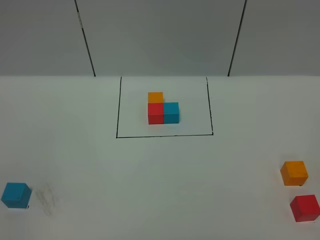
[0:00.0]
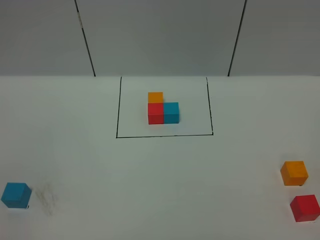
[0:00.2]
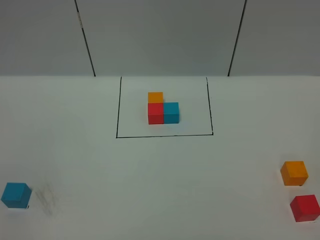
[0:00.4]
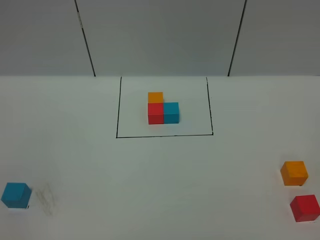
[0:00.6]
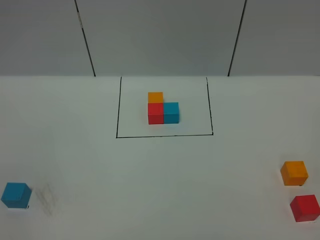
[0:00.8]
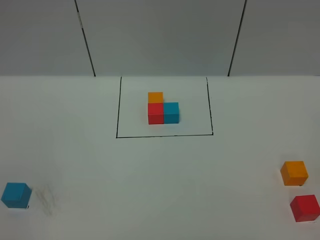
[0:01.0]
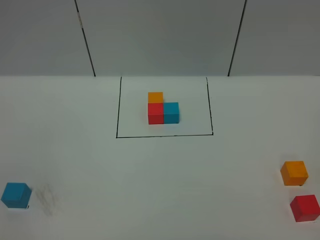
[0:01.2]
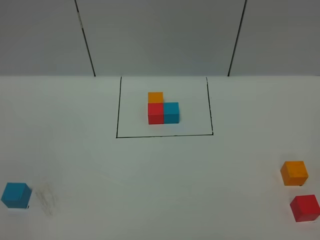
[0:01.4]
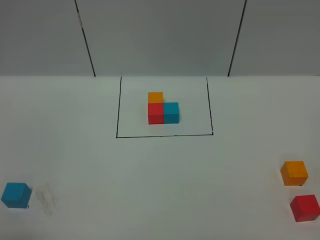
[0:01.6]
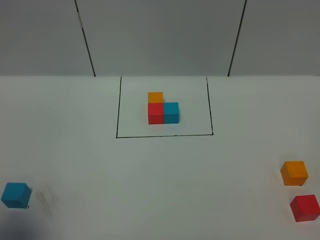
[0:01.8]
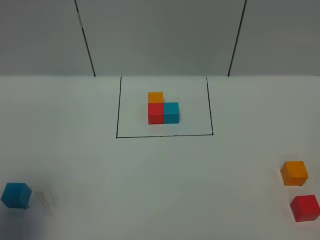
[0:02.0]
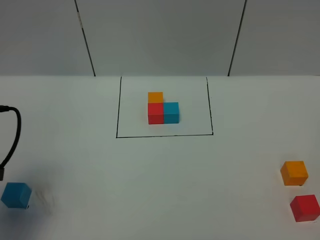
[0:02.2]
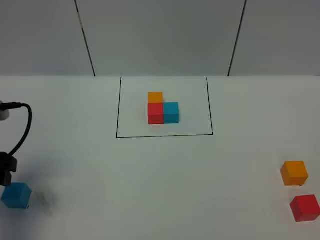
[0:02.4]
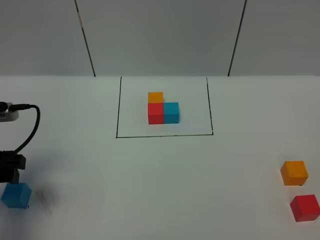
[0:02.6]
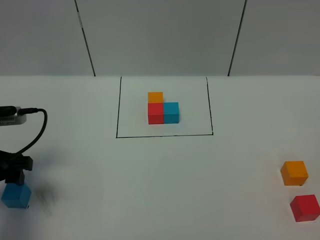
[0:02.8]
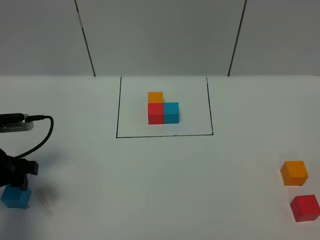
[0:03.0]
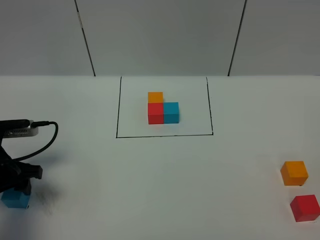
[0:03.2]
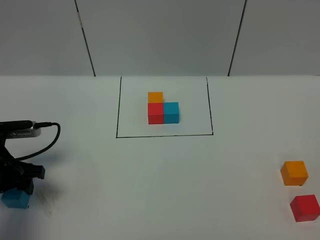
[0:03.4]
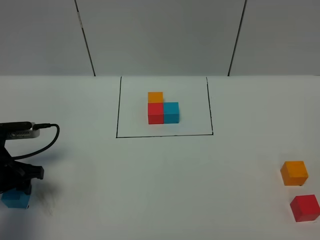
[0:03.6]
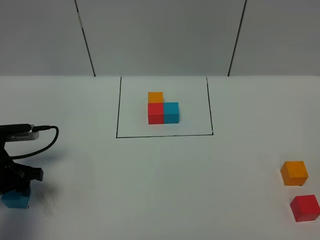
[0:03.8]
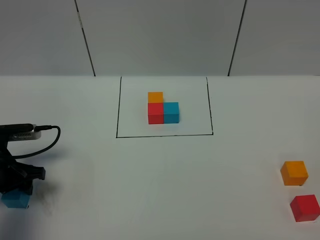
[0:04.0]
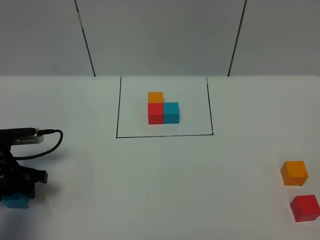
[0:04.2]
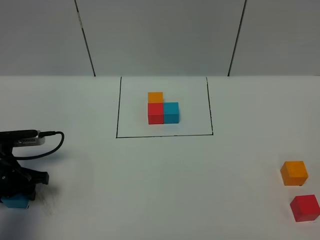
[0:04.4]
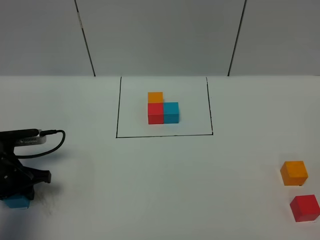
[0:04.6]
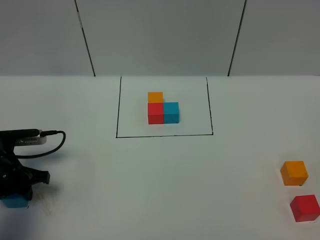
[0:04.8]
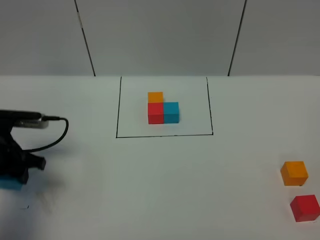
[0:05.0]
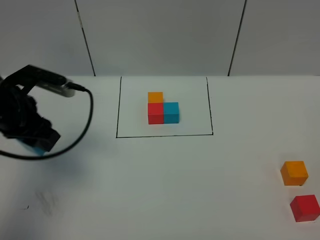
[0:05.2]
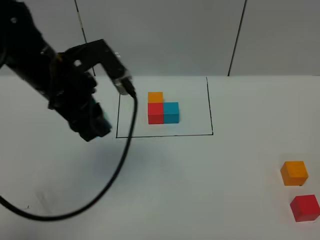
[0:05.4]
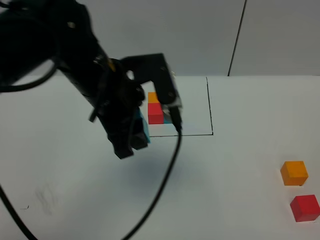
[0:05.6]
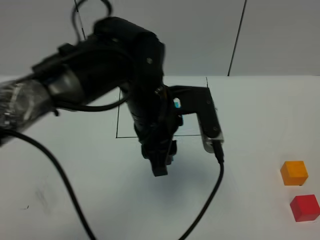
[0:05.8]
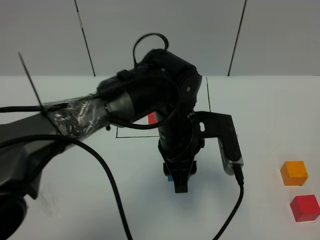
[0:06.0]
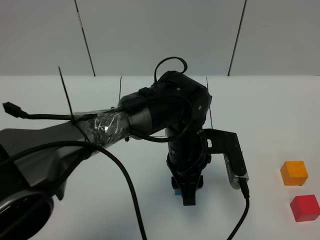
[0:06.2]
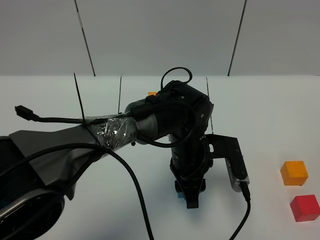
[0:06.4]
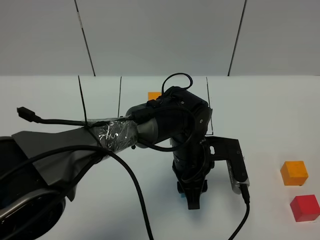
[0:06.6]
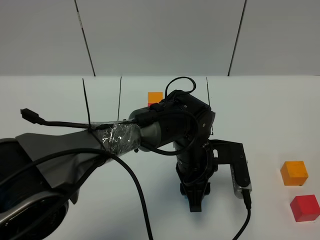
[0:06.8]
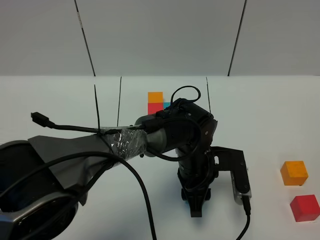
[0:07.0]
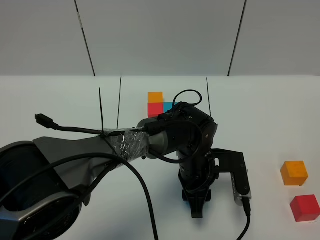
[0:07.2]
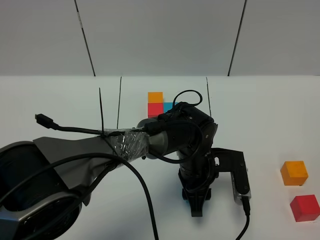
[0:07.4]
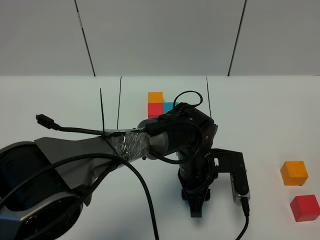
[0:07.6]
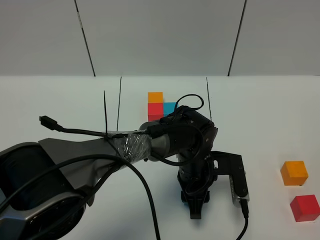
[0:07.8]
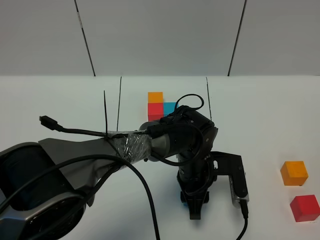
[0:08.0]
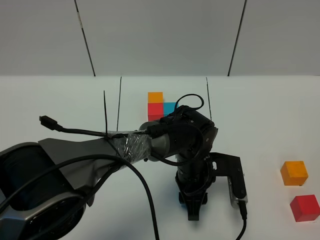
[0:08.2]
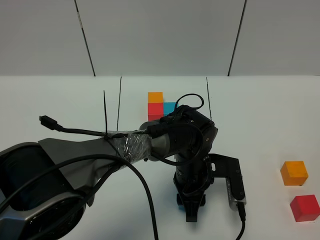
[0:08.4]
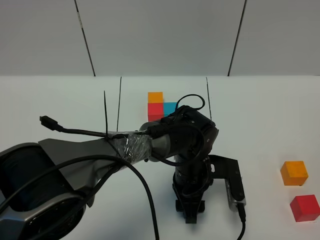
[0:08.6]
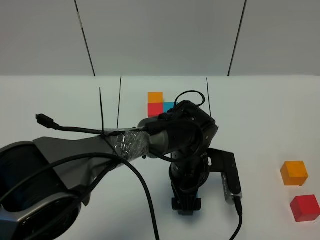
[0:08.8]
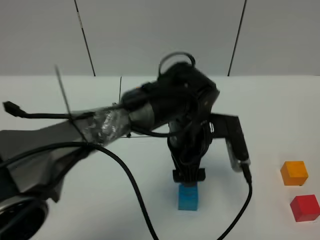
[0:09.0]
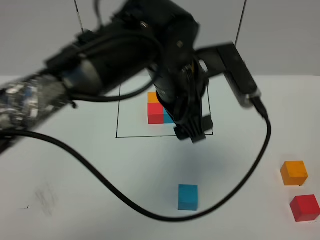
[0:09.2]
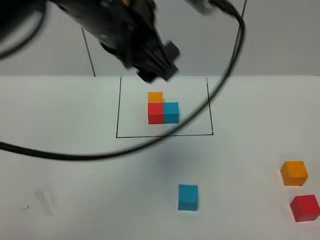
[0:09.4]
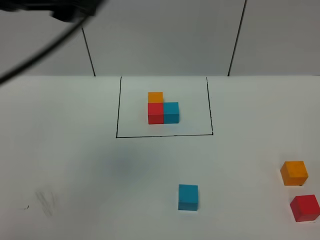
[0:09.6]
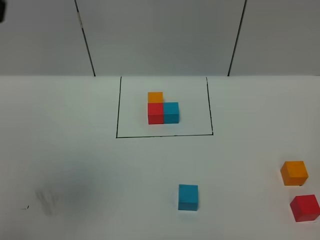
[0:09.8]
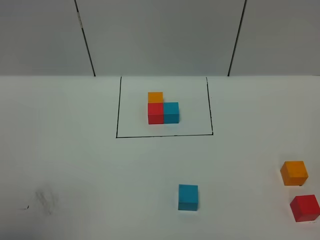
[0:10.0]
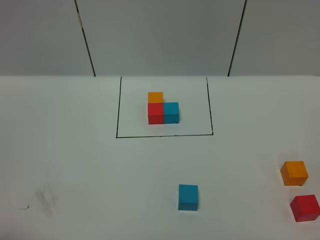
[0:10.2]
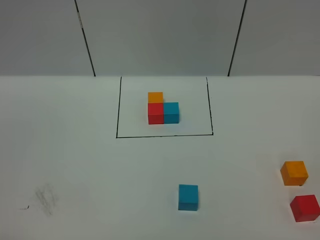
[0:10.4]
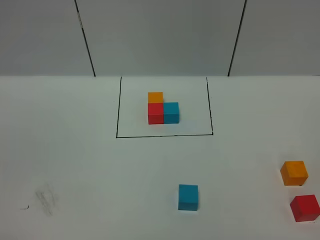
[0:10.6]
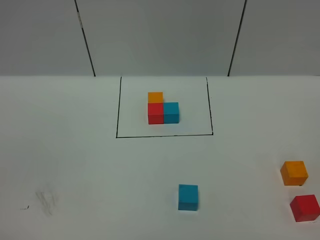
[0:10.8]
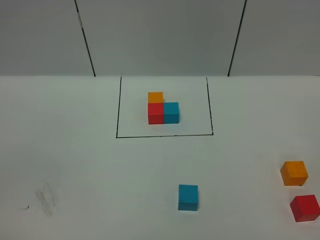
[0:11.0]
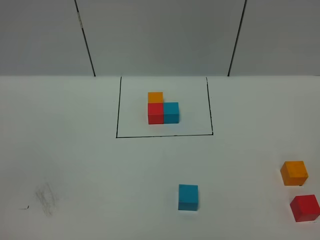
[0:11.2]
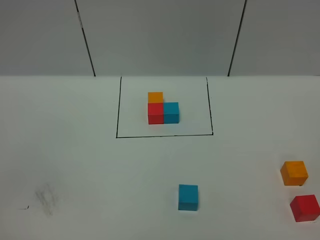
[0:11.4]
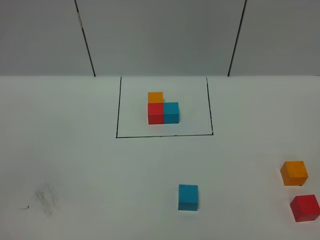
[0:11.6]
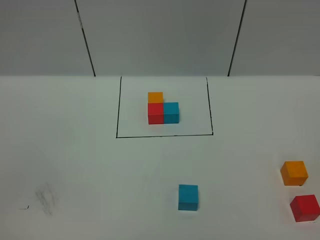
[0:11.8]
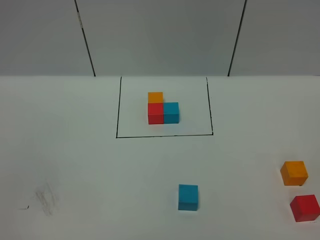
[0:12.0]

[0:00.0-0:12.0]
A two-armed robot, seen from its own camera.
Task of the whole recording: According to the building block template in front, assemble the scattered blocks together.
Step, 0:02.2 to 0:08.8: Put the blue cube in the center of the table.
0:01.6 to 0:03.0: The left gripper moves forward and downward, approximately 25 cm.
0:03.0 to 0:04.4: The left gripper goes approximately 5 cm downward.
0:04.4 to 0:06.0: The left gripper heads to the right, covering approximately 35 cm, and closes its fingers.
0:06.0 to 0:07.6: The left gripper travels downward by approximately 10 cm.
0:07.6 to 0:09.0: The left gripper heads upward, covering approximately 10 cm, and opens.
0:09.0 to 0:10.4: The left gripper goes some 50 cm to the left, backward and upward.

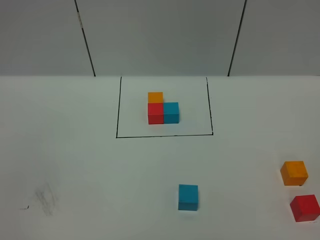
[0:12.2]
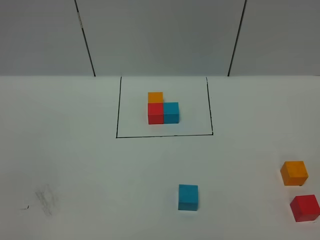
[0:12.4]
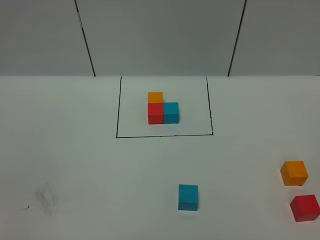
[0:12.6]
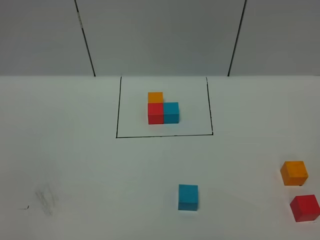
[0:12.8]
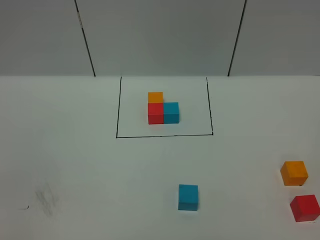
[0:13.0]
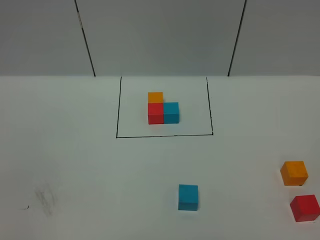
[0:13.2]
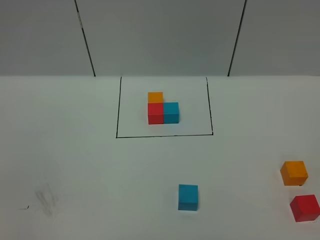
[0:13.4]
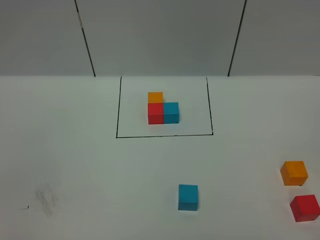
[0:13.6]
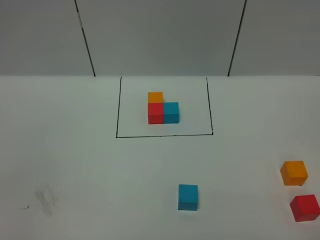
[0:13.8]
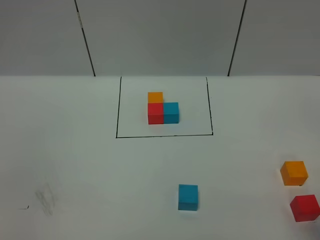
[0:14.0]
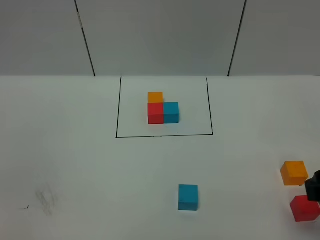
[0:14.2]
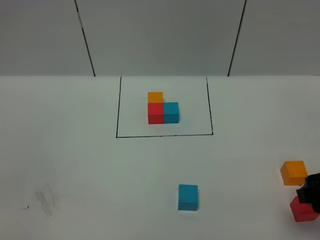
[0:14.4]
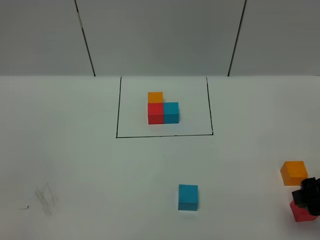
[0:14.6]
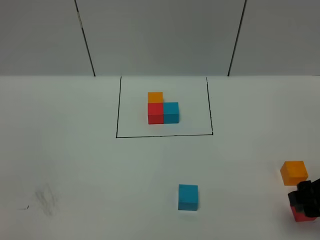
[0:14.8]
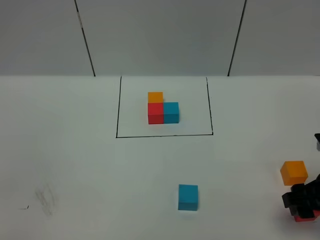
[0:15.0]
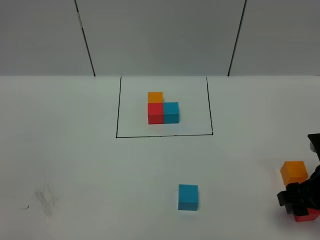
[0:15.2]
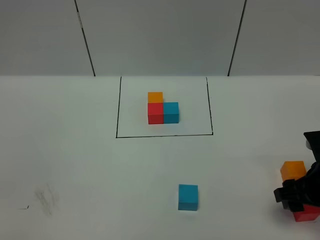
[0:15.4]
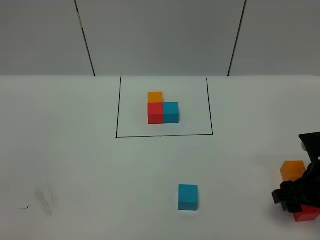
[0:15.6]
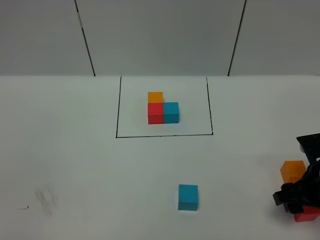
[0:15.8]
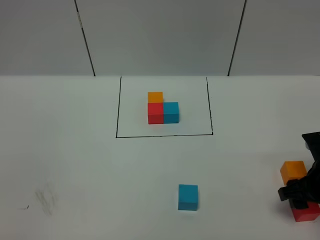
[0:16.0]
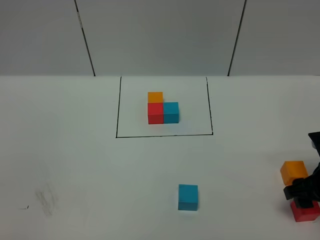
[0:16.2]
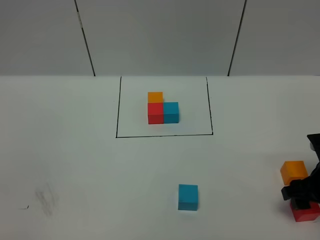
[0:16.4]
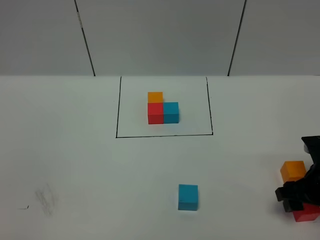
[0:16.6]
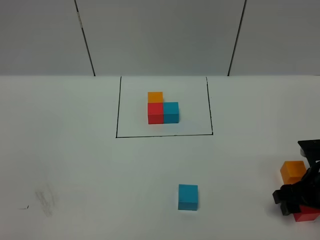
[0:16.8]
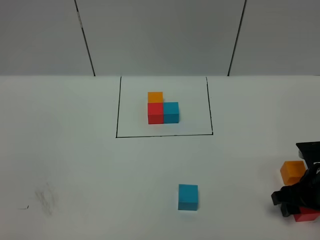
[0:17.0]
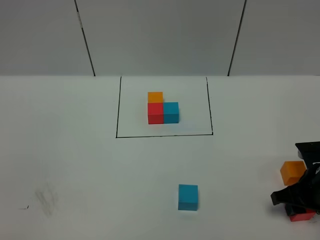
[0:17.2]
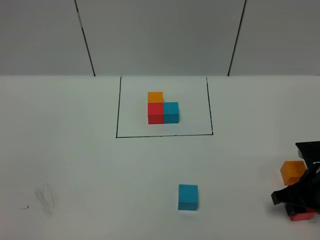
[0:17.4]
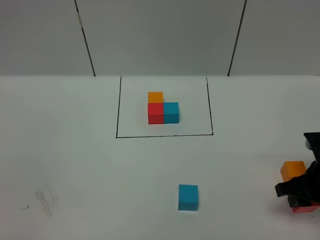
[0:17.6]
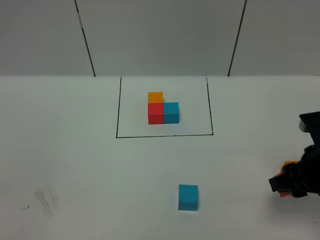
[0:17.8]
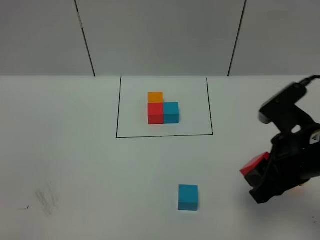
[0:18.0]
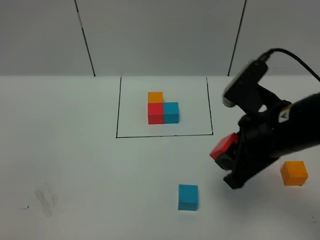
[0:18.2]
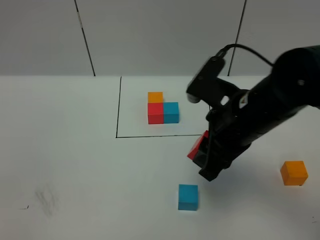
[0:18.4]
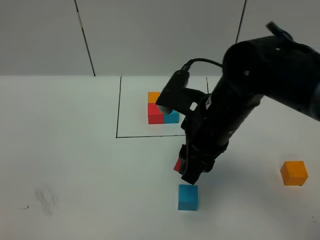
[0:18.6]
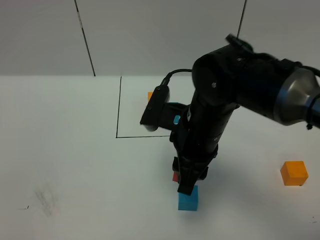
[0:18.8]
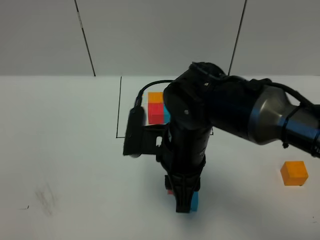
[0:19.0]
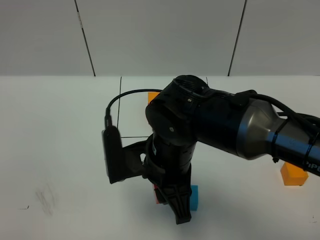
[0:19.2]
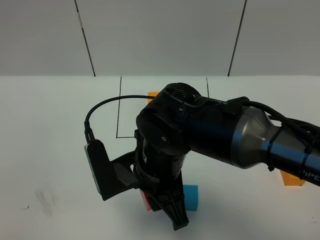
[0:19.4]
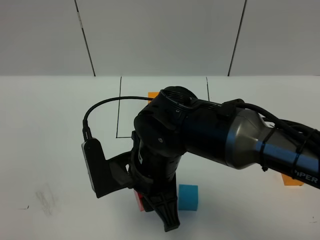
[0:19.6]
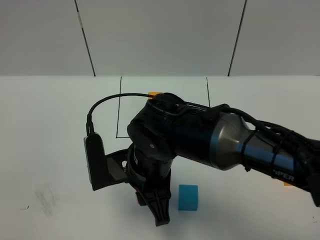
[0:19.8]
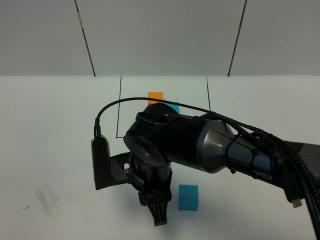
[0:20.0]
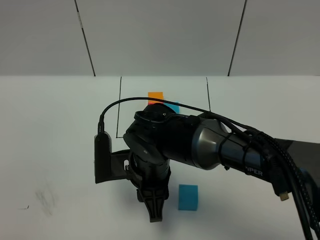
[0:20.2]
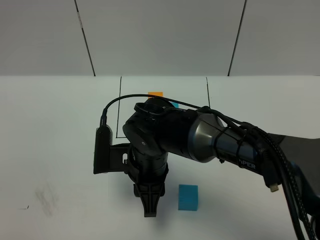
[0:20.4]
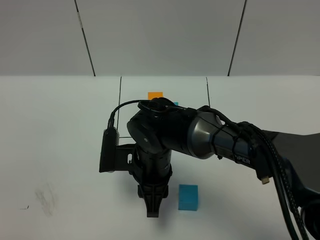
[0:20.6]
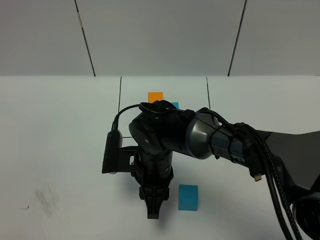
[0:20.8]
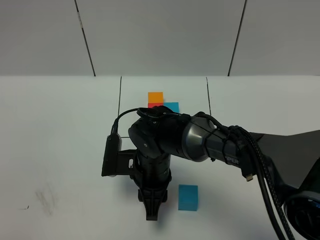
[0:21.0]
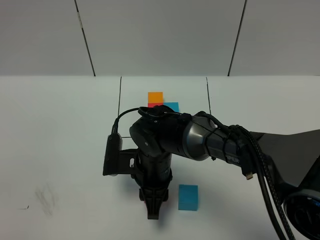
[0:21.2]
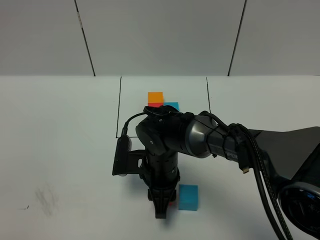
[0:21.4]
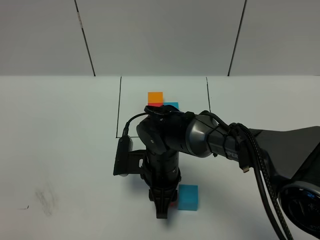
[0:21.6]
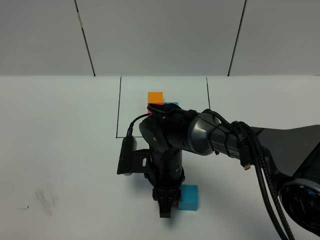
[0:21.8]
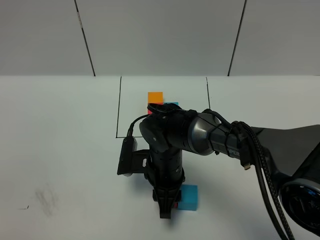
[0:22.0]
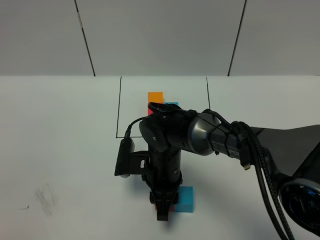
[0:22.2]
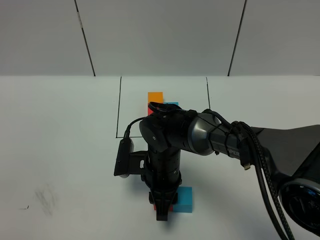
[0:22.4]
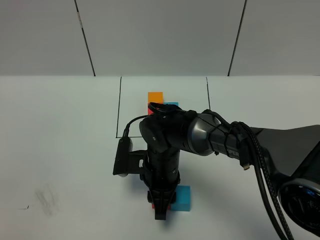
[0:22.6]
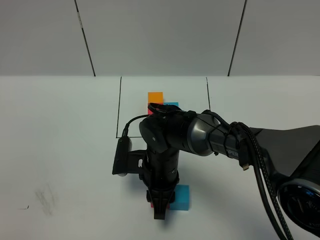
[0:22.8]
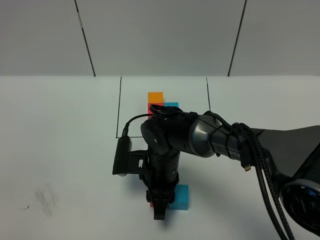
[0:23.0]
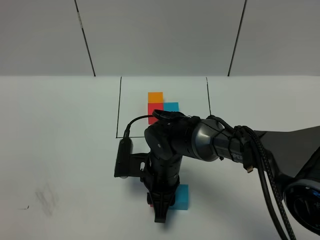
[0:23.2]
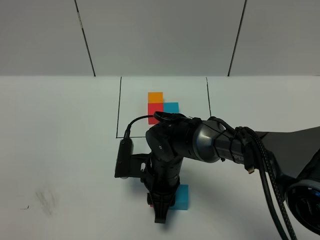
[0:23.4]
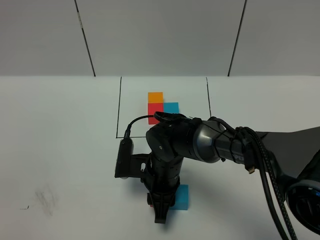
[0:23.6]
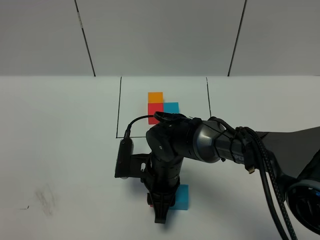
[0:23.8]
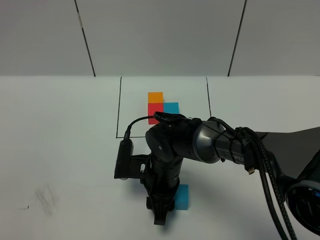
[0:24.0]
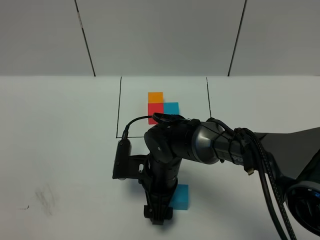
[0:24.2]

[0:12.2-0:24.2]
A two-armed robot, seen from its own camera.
Task of the whole recording: According to the building block template in front, assemble the scattered blocks together.
0:13.8 to 0:15.2: The right gripper shifts roughly 20 cm forward and downward.
0:15.2 to 0:16.6: The right gripper ends up some 5 cm from where it was.
0:16.6 to 0:18.2: The right gripper travels upward and to the left by roughly 20 cm, and closes.
0:18.2 to 0:19.8: The right gripper moves to the left and downward, about 20 cm.
0:19.8 to 0:21.2: The right gripper travels downward and forward by roughly 10 cm.
0:21.2 to 0:22.6: The grippers make only small movements.
0:22.6 to 0:24.2: The right gripper opens up.
